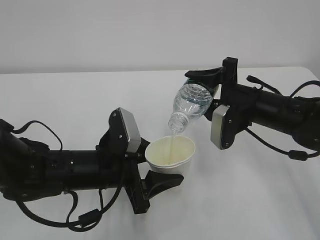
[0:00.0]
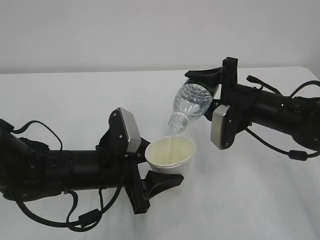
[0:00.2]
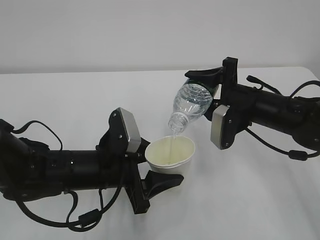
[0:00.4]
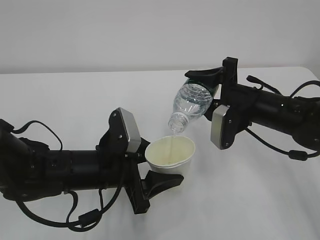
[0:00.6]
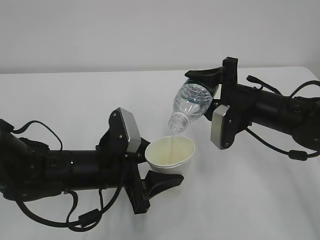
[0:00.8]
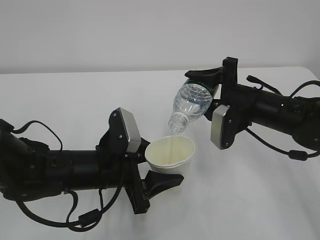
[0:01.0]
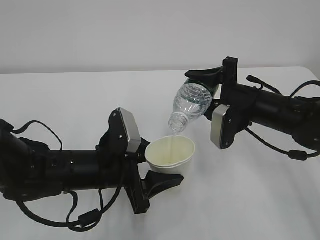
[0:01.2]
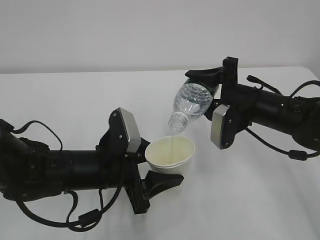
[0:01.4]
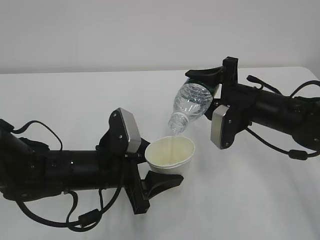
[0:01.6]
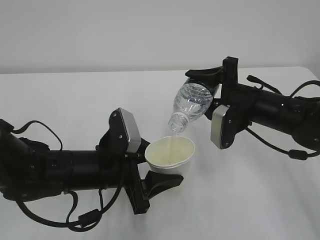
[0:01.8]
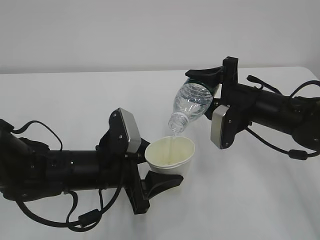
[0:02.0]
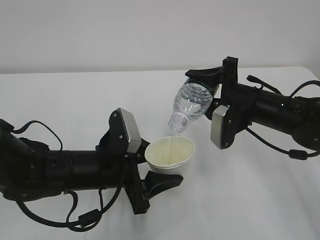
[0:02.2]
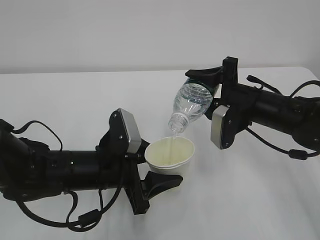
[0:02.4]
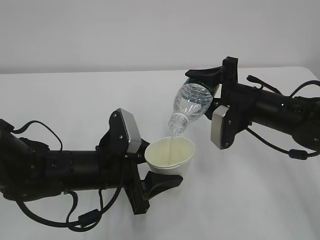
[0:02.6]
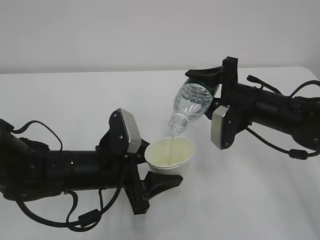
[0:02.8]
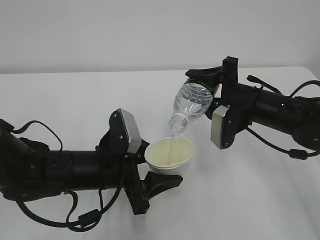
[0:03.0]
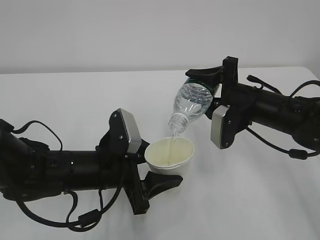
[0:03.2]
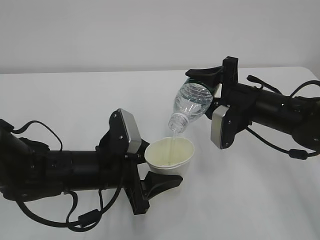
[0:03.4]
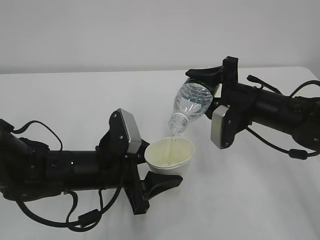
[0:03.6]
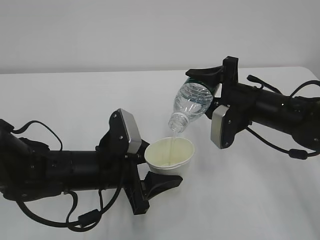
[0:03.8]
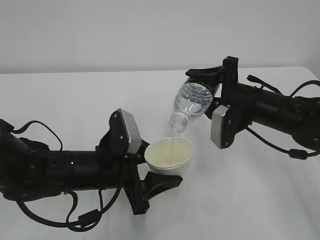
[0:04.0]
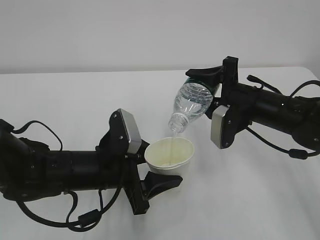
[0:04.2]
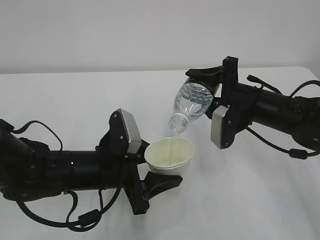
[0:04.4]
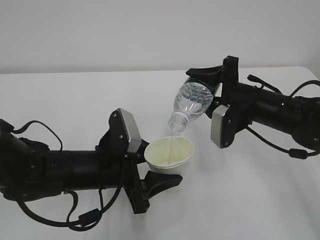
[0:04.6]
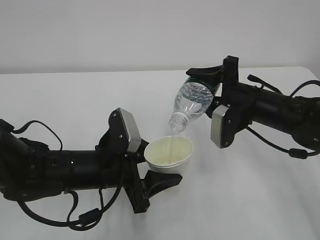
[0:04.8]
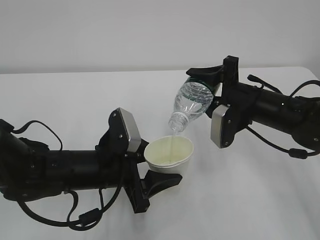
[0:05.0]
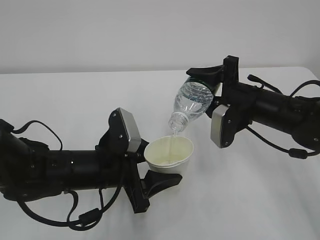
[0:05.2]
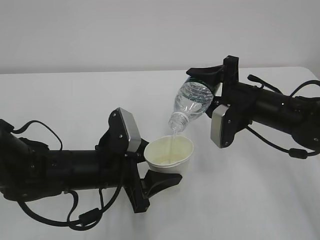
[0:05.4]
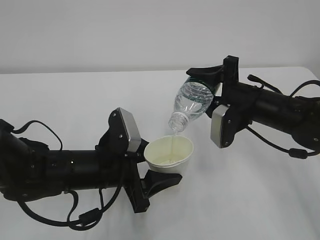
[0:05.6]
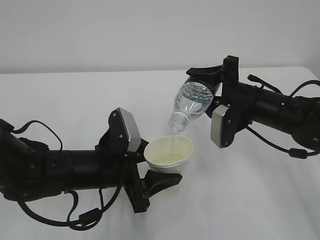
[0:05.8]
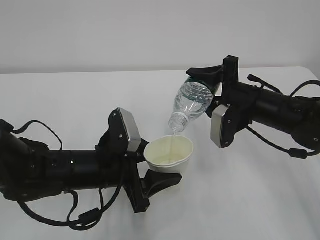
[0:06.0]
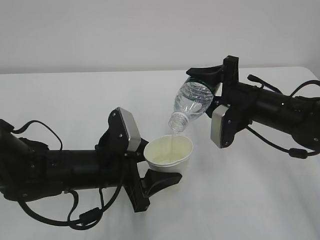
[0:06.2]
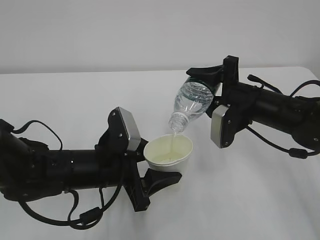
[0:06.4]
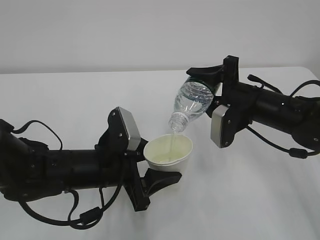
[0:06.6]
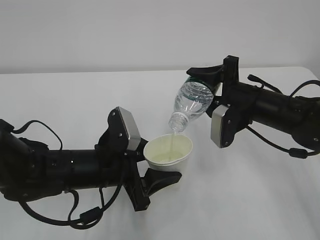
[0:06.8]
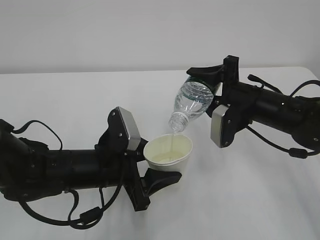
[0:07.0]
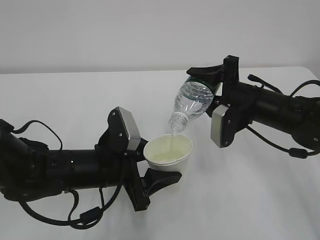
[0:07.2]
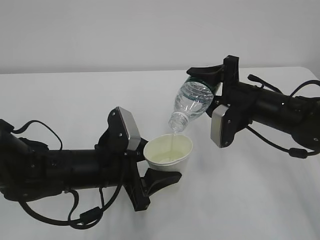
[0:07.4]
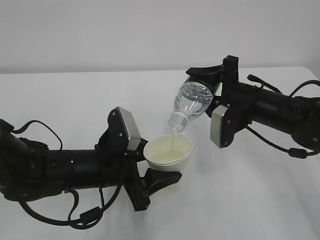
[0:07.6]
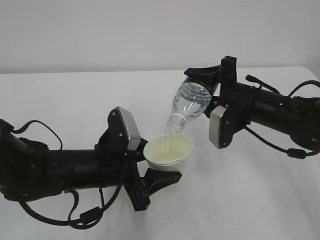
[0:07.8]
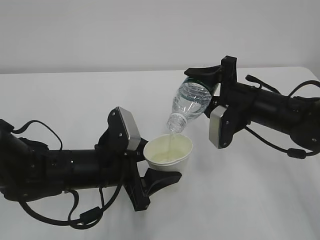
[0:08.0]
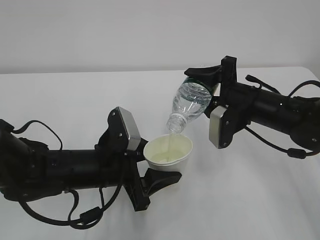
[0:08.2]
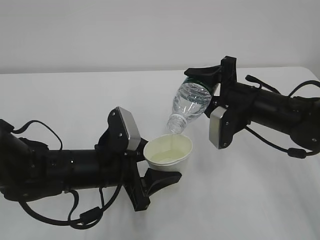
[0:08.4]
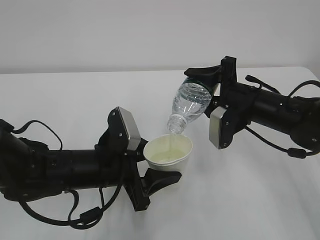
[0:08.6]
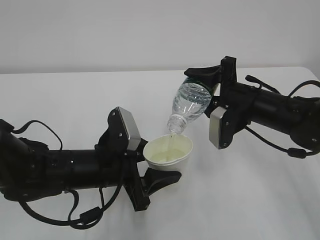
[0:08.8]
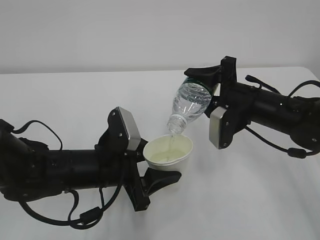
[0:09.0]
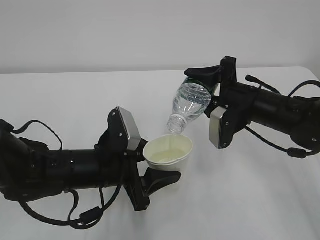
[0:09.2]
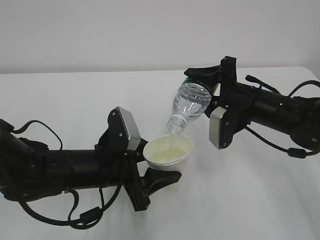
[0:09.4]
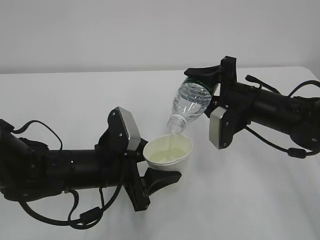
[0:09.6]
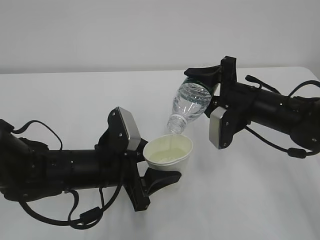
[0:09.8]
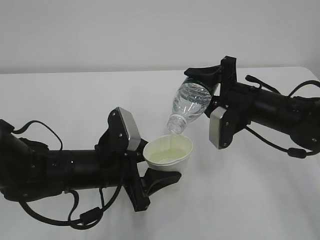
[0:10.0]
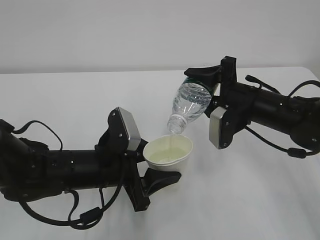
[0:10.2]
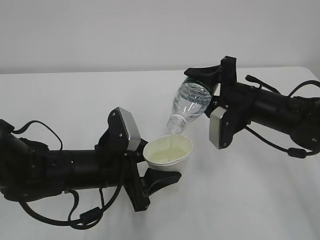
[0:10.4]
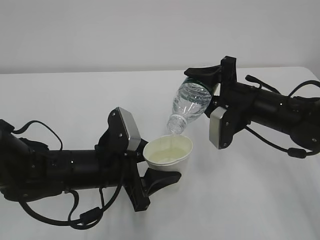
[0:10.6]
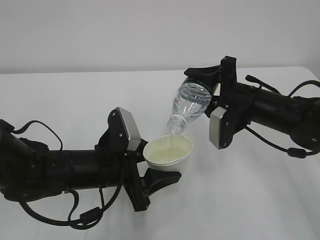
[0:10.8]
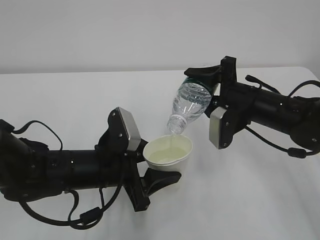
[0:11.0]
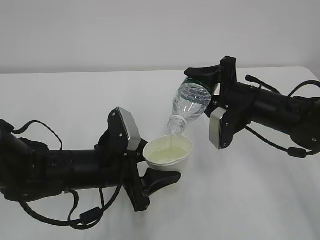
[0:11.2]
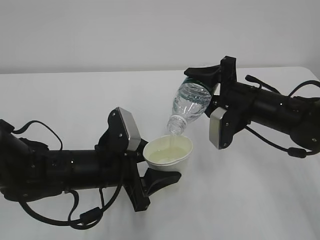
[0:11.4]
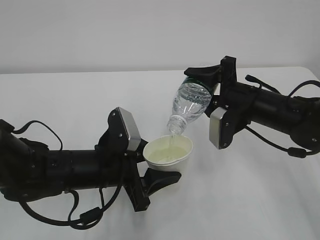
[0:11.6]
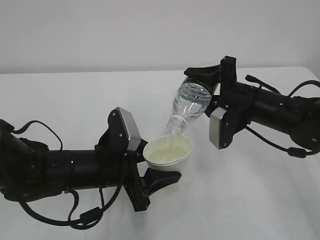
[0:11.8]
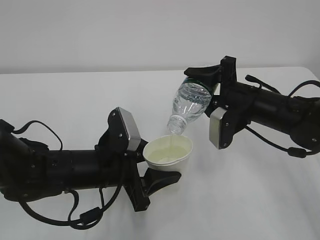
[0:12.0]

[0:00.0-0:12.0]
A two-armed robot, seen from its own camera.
0:00.0 to 0:07.6: Neither gripper changes place.
0:07.6 to 0:12.0: Both grippers stay about where they are.

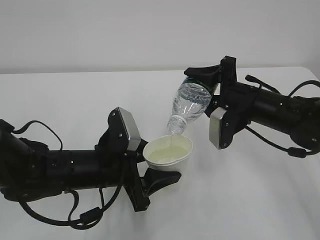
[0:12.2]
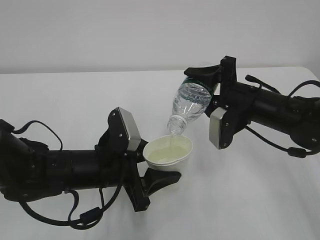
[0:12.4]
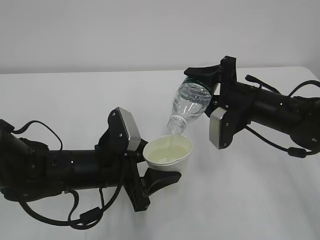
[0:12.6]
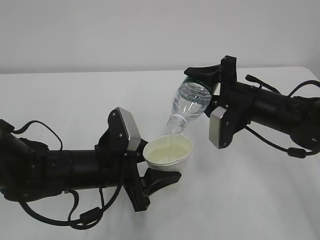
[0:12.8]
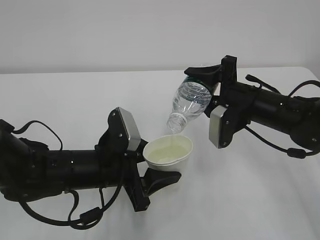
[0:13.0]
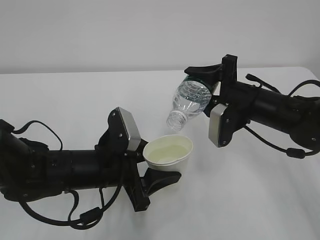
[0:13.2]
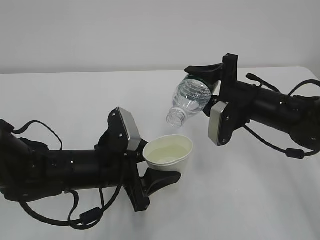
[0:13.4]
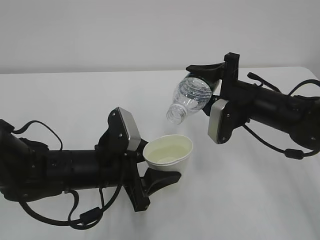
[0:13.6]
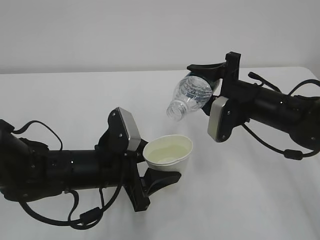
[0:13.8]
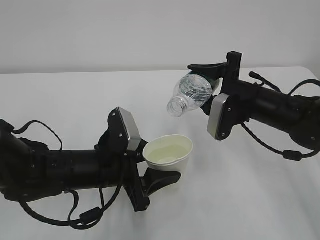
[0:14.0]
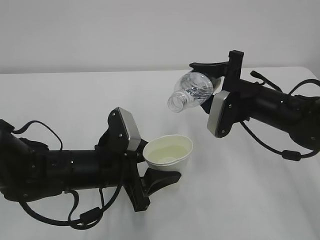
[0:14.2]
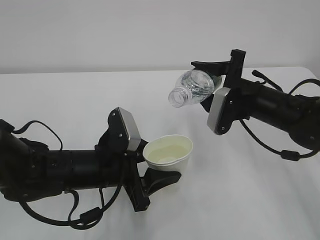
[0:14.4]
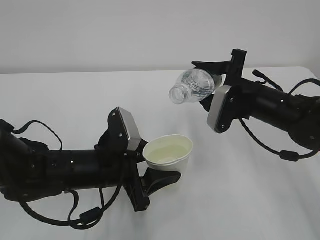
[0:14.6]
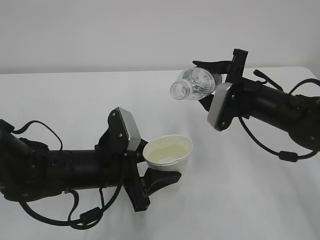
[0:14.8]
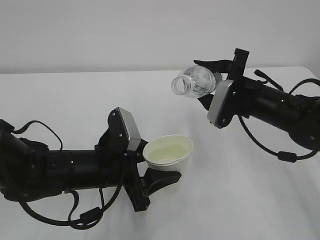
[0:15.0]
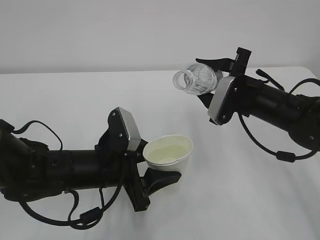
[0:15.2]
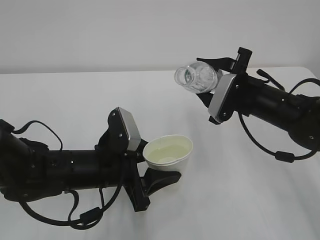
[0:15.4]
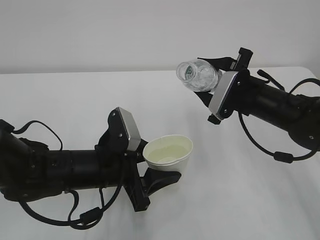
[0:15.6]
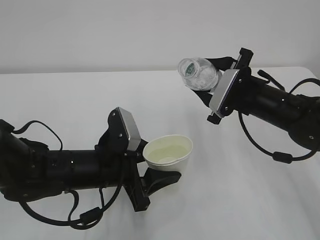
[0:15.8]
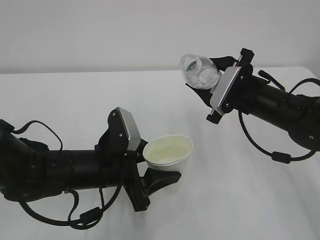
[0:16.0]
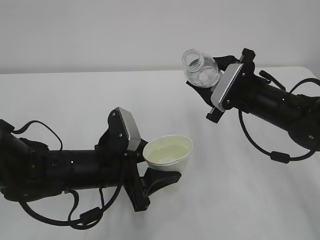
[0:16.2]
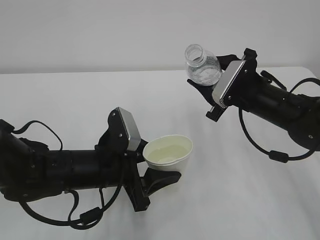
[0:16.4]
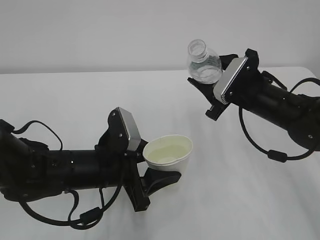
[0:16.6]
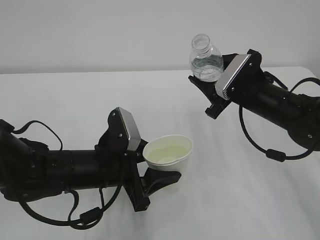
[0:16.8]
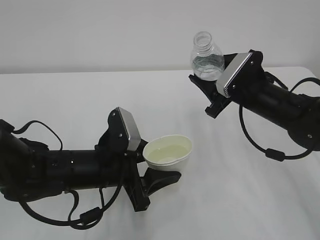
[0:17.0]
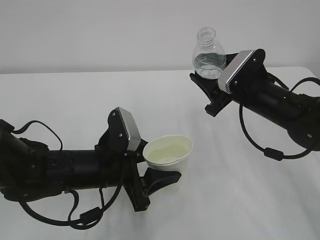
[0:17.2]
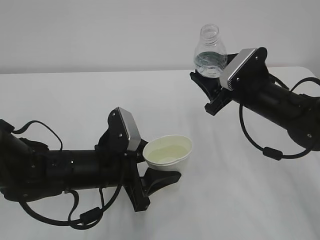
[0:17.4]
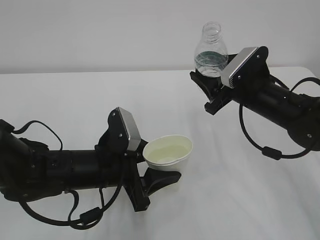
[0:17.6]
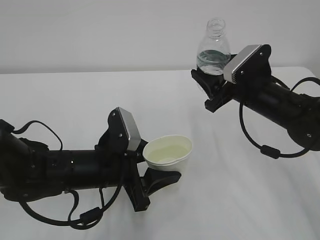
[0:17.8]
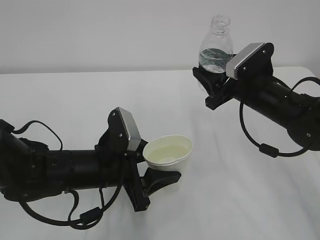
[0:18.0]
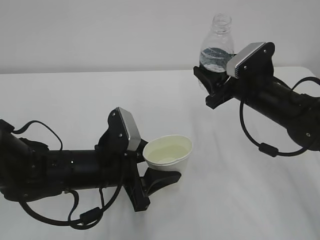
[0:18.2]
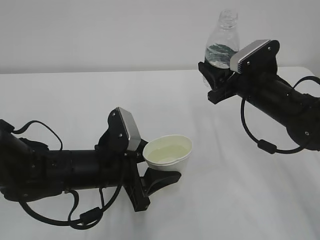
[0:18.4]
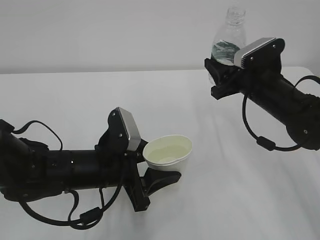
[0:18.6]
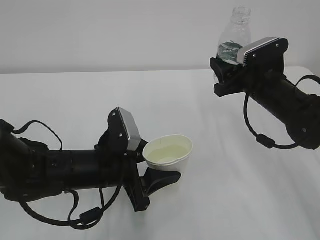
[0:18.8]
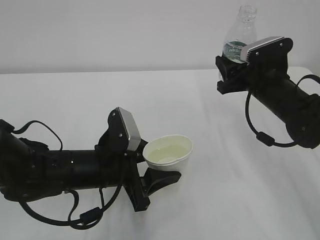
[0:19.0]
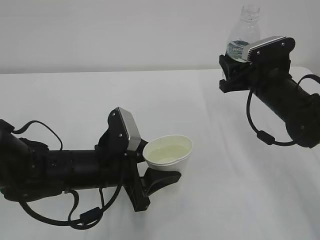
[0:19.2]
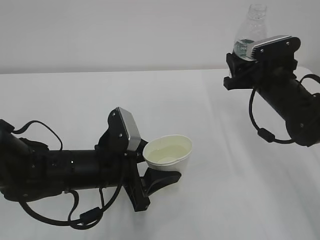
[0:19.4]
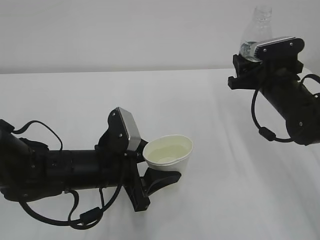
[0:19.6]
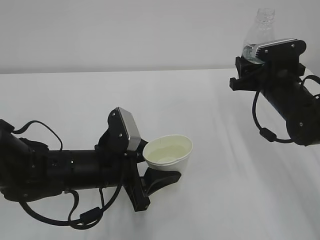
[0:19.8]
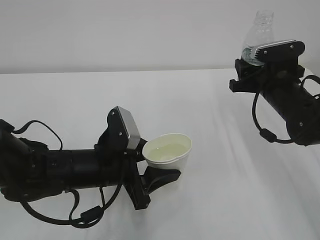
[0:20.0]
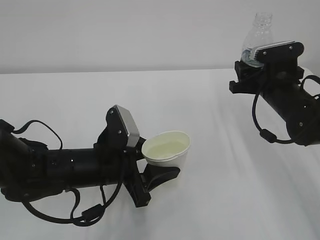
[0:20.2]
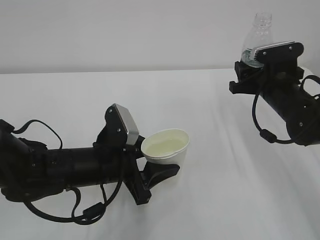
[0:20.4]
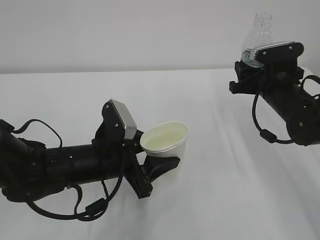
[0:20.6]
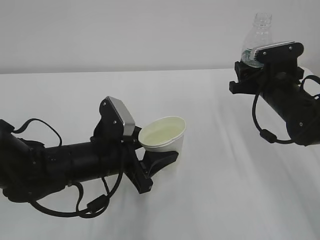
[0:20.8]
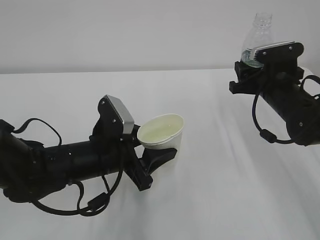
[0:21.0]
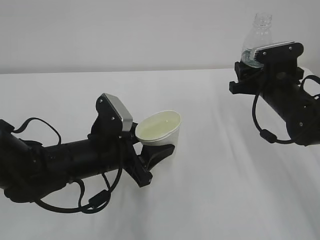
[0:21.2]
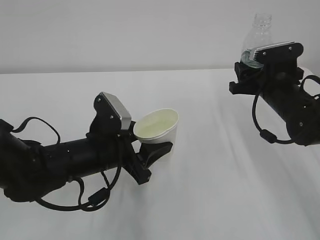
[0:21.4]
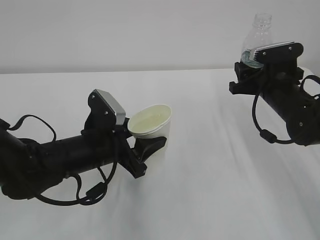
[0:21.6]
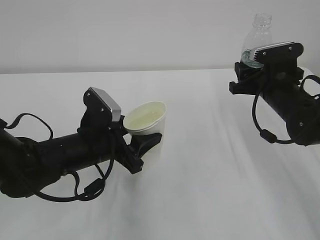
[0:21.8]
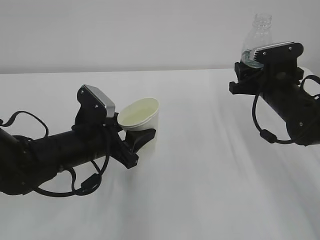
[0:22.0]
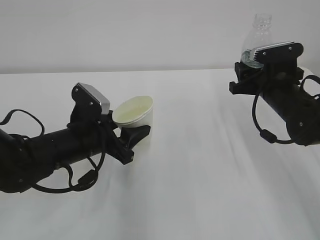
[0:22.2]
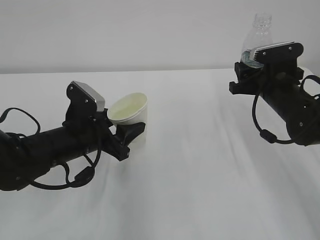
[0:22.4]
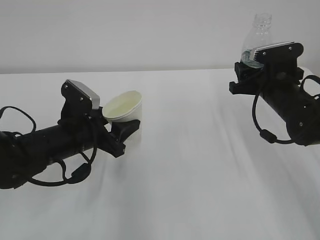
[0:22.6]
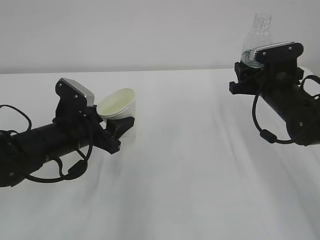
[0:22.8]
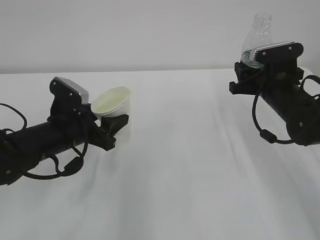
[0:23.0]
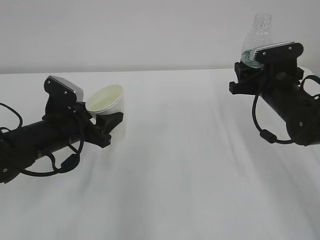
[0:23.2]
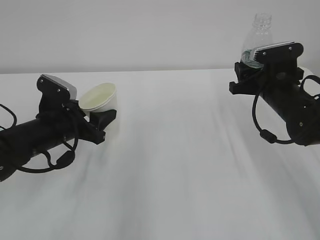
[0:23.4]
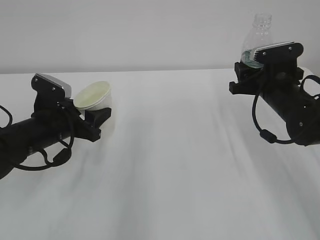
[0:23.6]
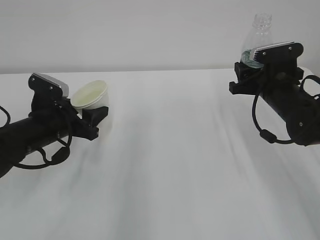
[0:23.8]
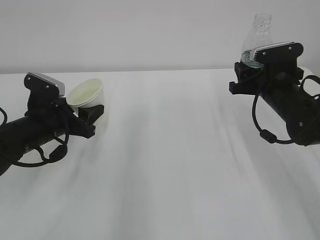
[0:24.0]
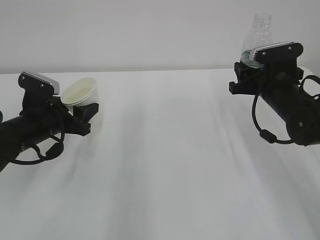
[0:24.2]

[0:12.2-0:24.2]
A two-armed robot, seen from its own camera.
0:12.2 to 0:13.8: The grippers stay close to where they were, moving slightly.
0:19.8 to 0:21.2: The grippers make only small movements.
0:21.2 to 0:22.6: The left gripper travels to the left by roughly 5 cm.
0:22.6 to 0:24.2: The left gripper heads to the left, covering some 5 cm.
